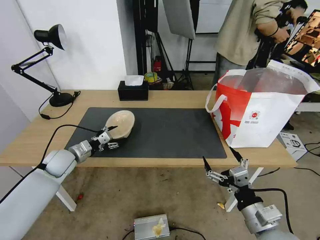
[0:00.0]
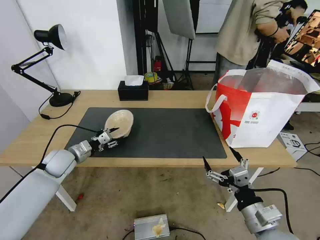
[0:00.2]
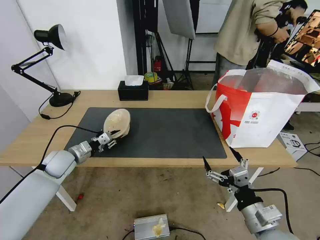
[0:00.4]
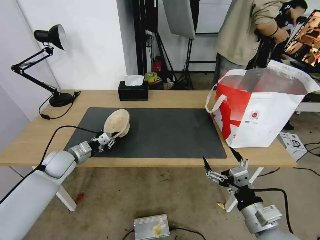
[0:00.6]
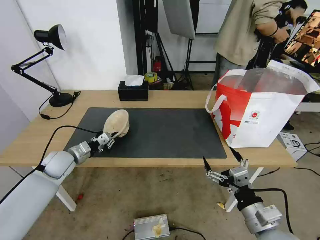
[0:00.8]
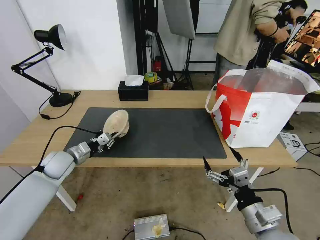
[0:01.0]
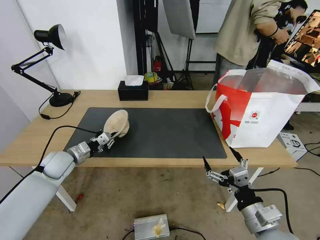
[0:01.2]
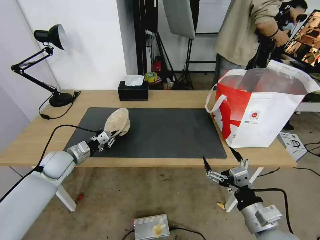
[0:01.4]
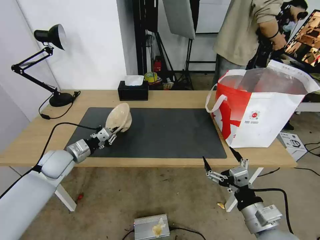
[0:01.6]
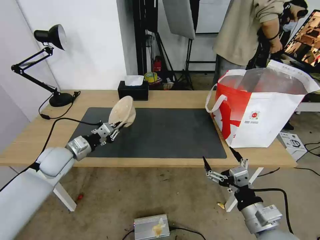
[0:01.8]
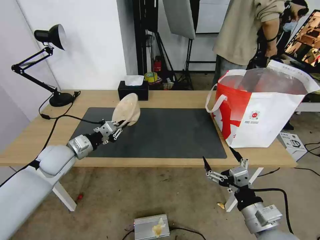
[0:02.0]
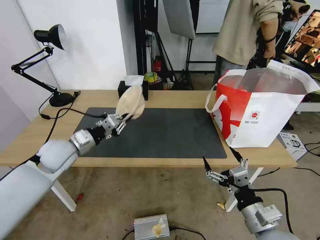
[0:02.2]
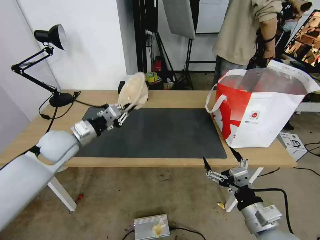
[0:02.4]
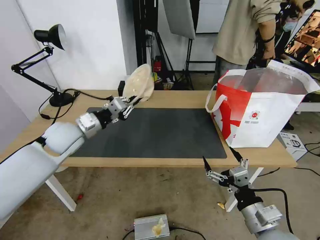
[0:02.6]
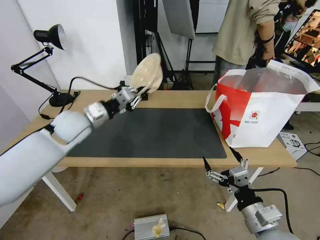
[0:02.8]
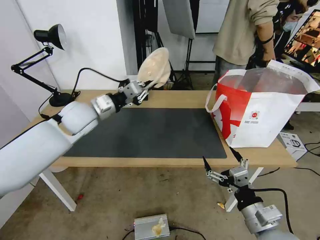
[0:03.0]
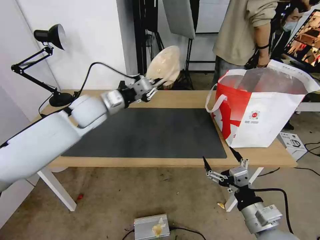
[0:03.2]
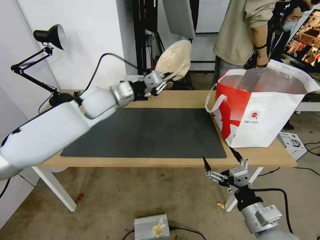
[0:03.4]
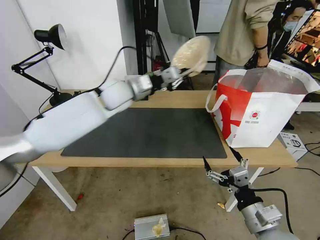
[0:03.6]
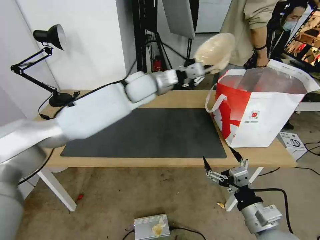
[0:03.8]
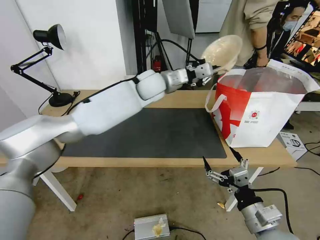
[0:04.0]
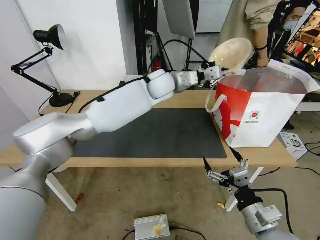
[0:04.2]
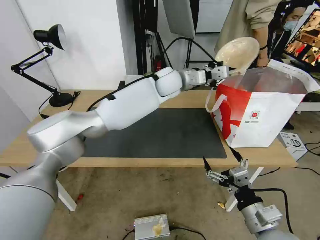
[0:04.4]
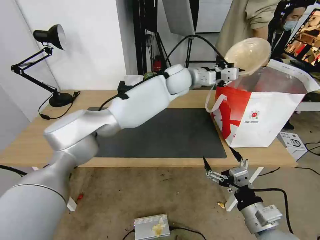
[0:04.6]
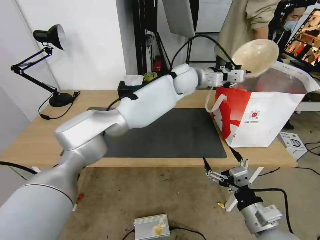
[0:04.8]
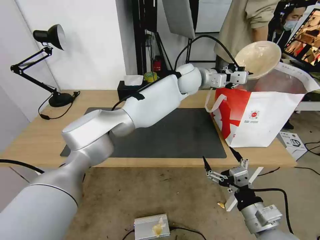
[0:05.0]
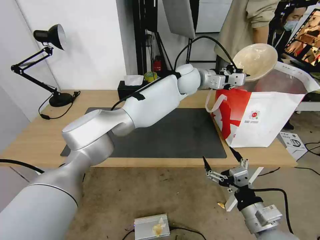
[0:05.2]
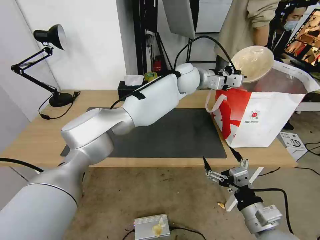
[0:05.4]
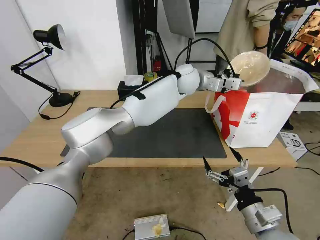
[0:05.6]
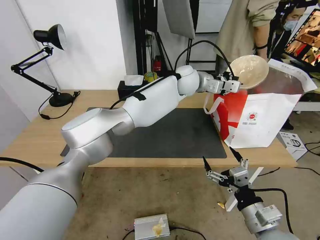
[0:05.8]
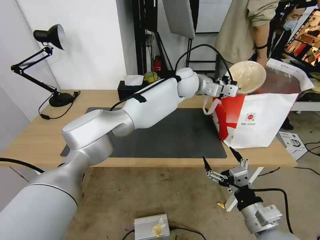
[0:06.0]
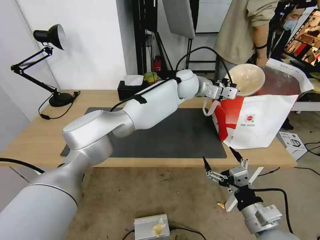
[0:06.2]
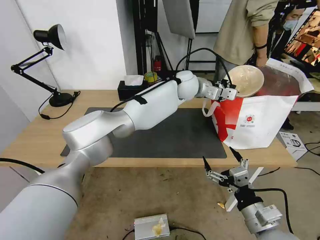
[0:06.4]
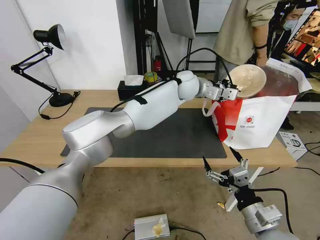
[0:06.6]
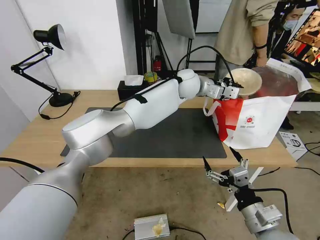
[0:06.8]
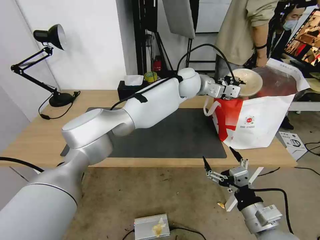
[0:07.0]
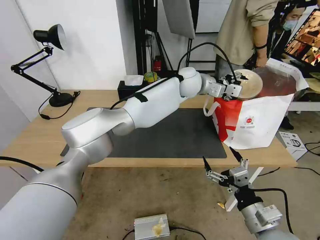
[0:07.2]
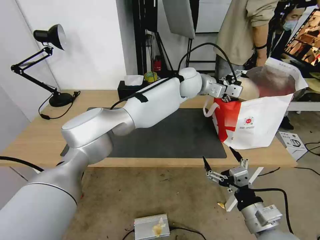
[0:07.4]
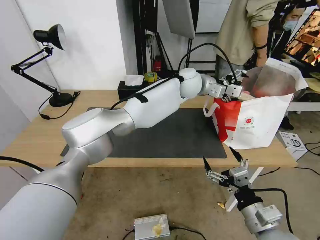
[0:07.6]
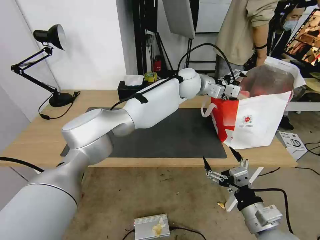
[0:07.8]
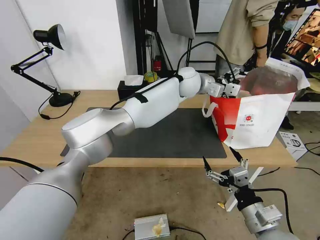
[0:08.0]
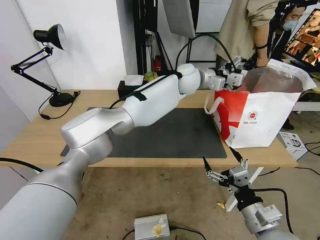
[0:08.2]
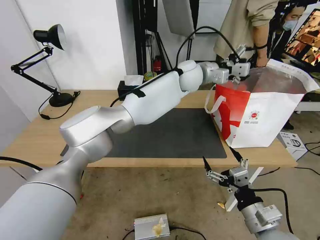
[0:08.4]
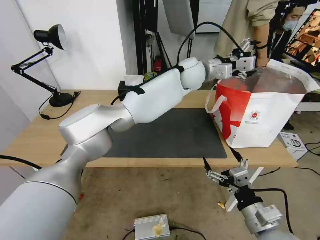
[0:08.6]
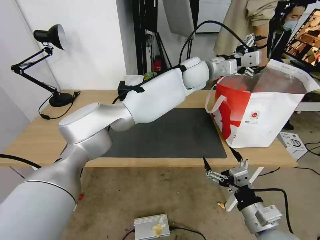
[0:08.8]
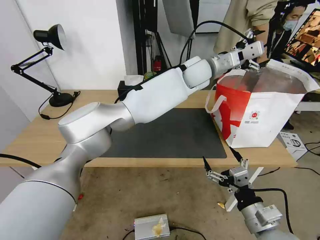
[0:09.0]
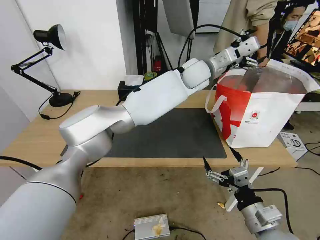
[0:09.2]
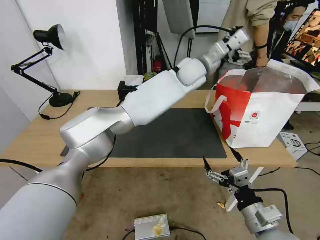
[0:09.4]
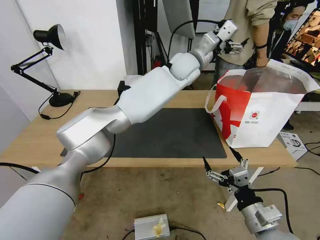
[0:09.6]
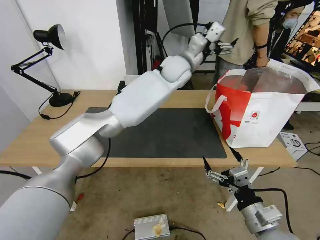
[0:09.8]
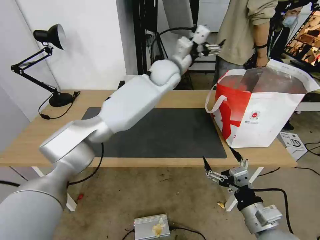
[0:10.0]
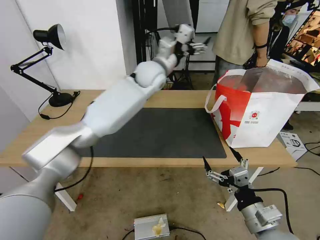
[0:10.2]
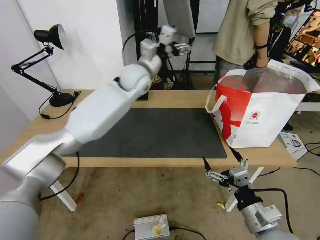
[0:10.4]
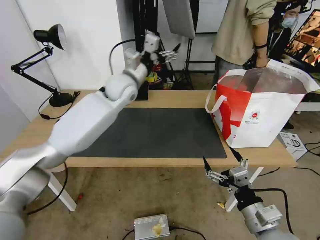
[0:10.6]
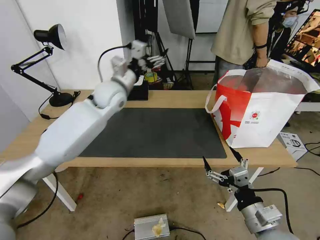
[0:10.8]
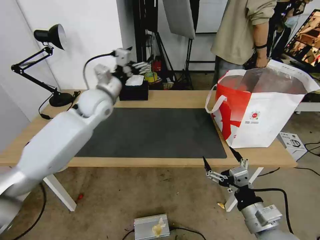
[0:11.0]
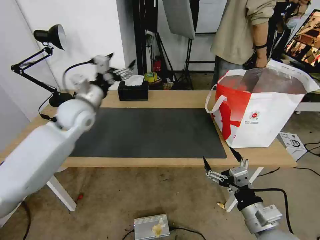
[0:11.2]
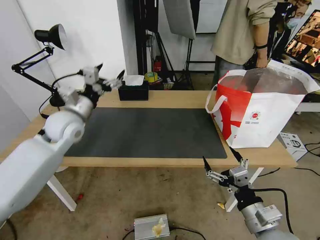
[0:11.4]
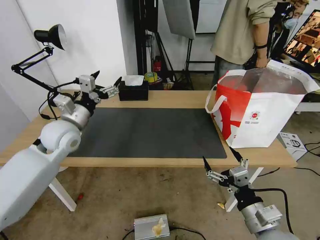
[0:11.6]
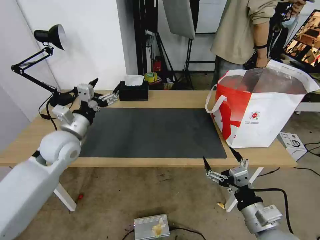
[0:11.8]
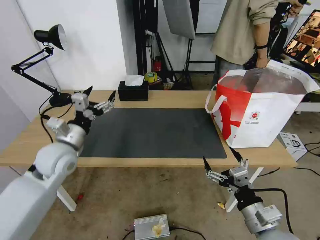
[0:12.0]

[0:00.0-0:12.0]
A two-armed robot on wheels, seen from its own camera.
Task of the whole recording: Pick up the trash from the table and place it into the takeout bag.
0:00.0 to 0:01.6: The left gripper closes.
0:01.6 to 0:03.0: The left gripper moves upward, to the right and forward, roughly 20 cm.
0:03.0 to 0:04.4: The left gripper travels to the right and forward by some 30 cm.
0:04.4 to 0:06.0: The left gripper travels to the right by approximately 5 cm.
0:06.0 to 0:07.6: The left gripper opens.
0:07.6 to 0:09.0: The left gripper ends up approximately 5 cm from where it was.
0:09.0 to 0:10.4: The left gripper heads to the left, covering about 20 cm.
0:10.4 to 0:12.0: The left gripper goes roughly 30 cm backward, to the left and downward.

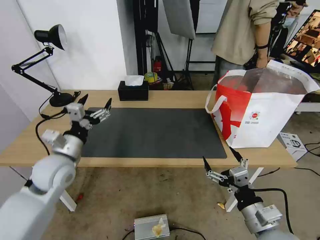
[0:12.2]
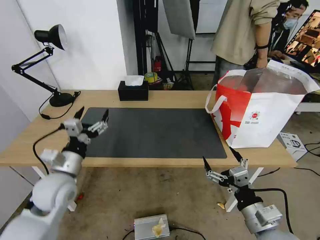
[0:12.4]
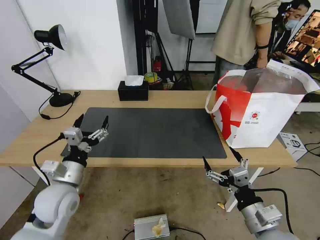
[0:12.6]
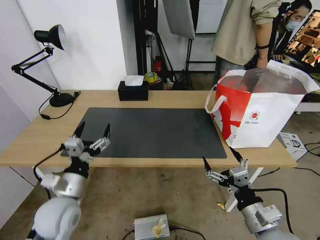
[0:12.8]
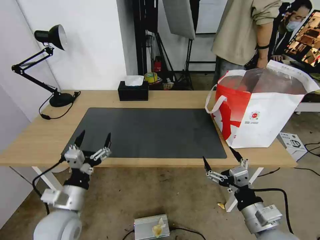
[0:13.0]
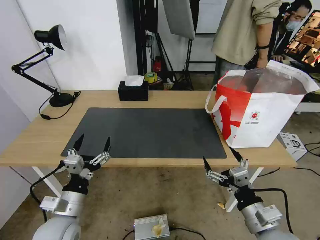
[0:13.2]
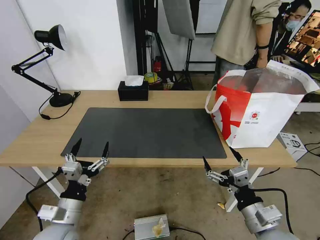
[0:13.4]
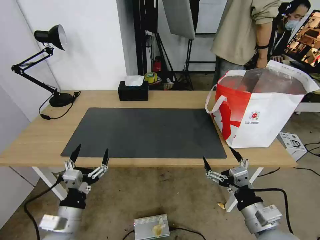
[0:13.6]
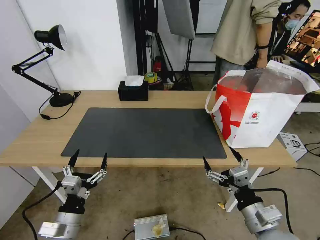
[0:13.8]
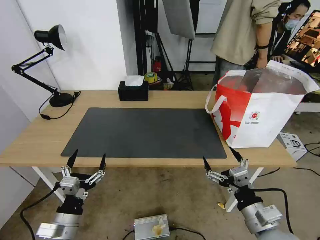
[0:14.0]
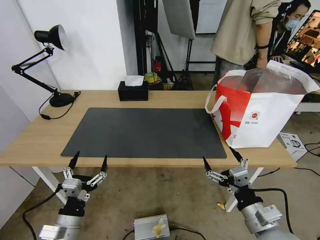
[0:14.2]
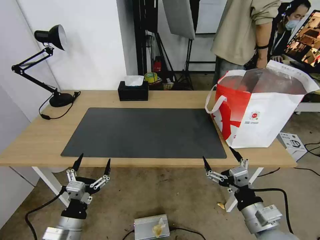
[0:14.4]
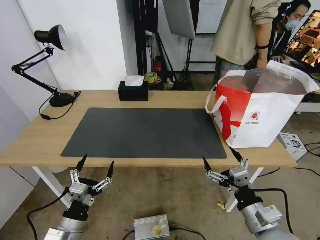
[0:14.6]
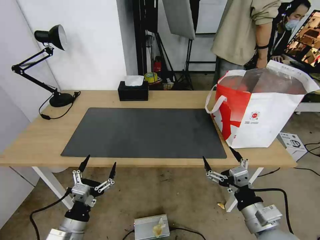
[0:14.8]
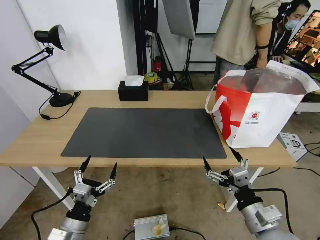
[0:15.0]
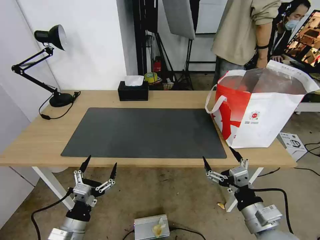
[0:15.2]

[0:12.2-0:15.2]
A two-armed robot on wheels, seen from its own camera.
Task of the whole recording: Pick up the trash from the table and place it into the takeout bag.
0:12.2 to 0:13.8: The left gripper heads backward and downward, covering about 20 cm.
0:13.8 to 0:15.2: The grippers move only a little.
